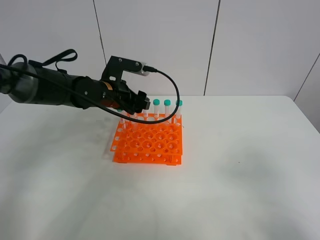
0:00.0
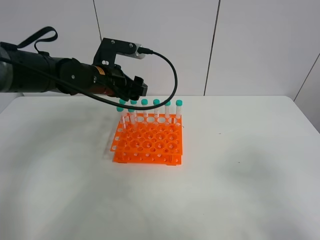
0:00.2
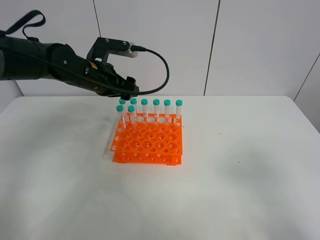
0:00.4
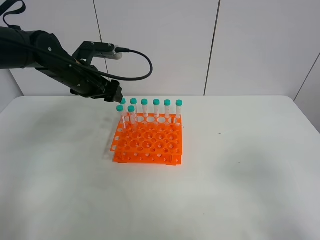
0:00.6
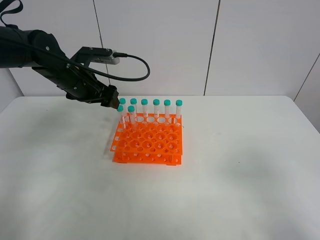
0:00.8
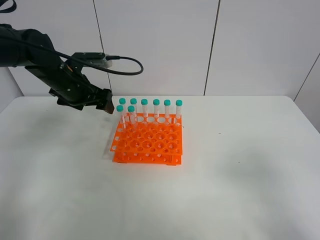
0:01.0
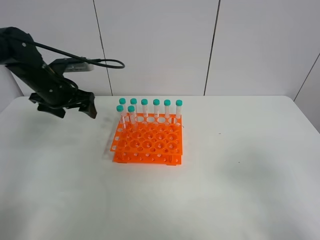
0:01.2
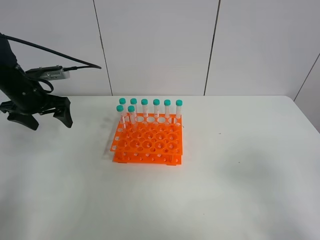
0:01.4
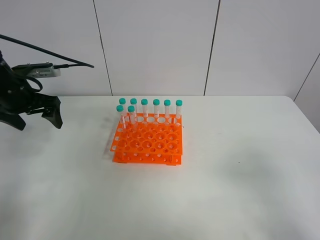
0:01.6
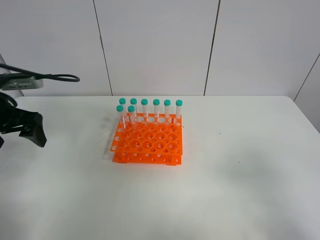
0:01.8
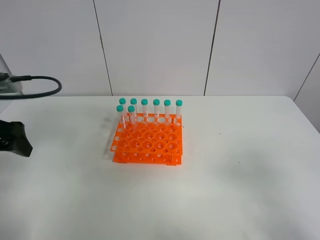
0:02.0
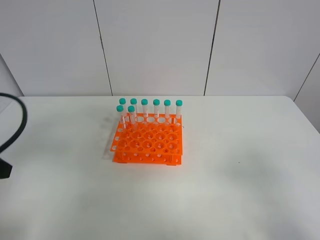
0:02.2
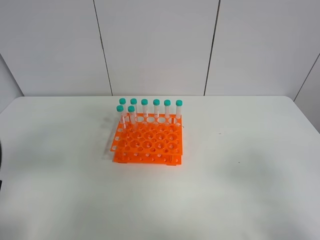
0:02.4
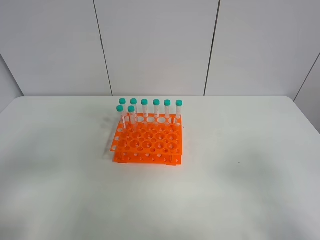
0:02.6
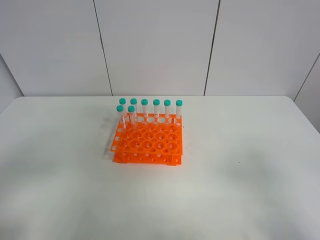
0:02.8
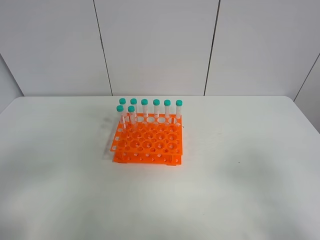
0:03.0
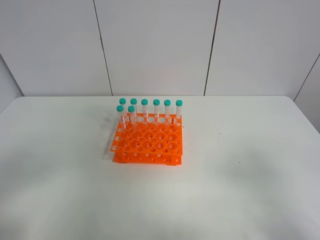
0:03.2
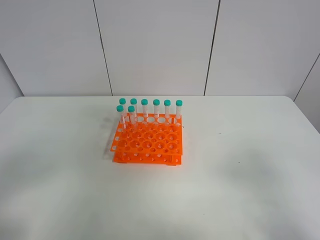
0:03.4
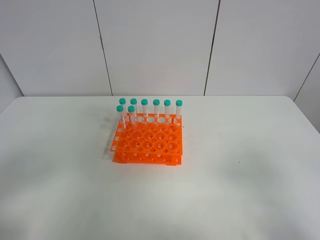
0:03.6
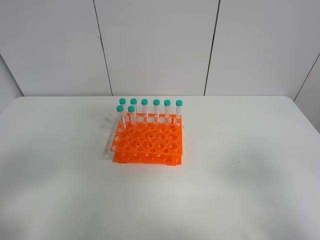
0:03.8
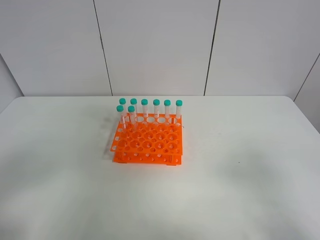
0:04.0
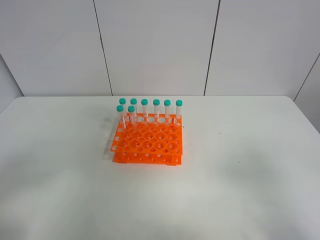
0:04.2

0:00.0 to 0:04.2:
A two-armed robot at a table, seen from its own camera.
Task of the whole recording: Put the test tube on the table back onto the test tube rack.
0:00.0 to 0:01.4: The left gripper moves to the left, some 20 cm.
0:01.4 to 0:02.8: The left gripper is displaced backward by roughly 35 cm.
